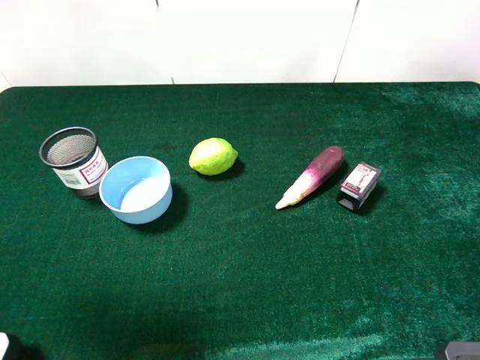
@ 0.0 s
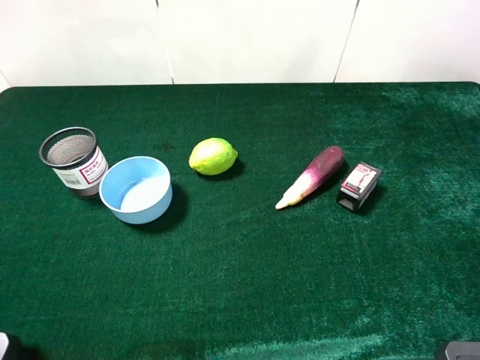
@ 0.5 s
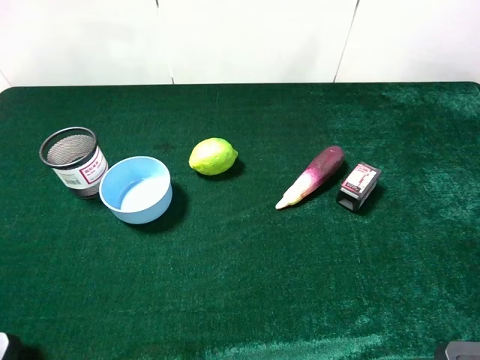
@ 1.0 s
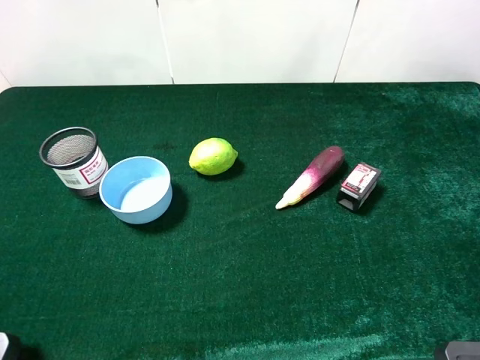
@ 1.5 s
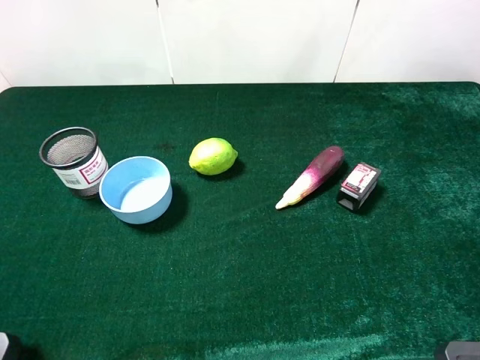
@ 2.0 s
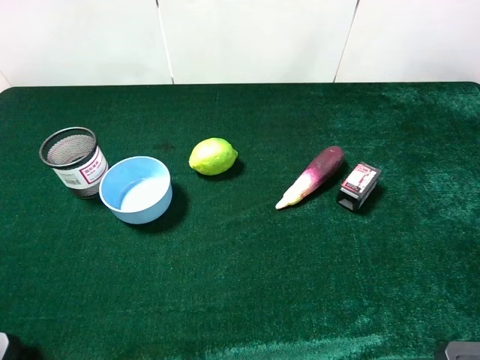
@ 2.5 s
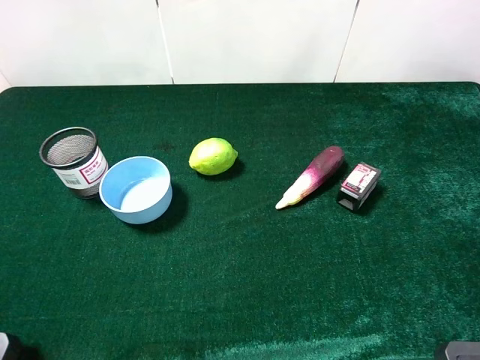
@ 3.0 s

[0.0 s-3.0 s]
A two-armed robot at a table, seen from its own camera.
Task of the whole recording: the gripper move the object.
0.0 to 1.5 s: The left gripper is displaced backward by some 15 cm.
